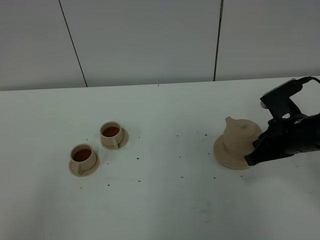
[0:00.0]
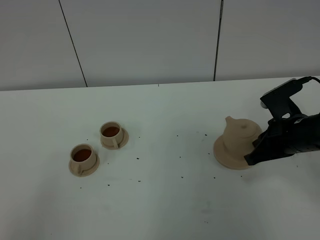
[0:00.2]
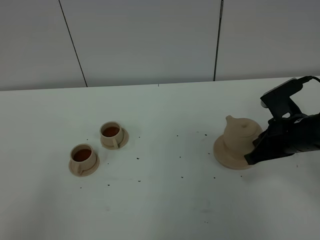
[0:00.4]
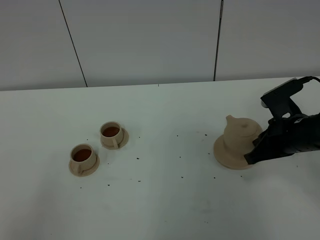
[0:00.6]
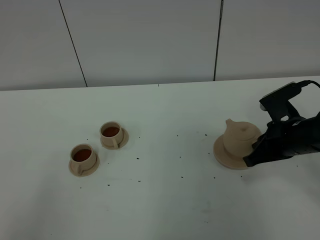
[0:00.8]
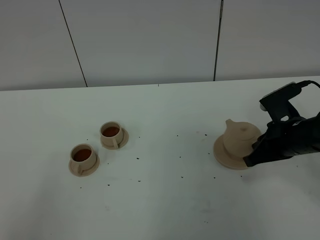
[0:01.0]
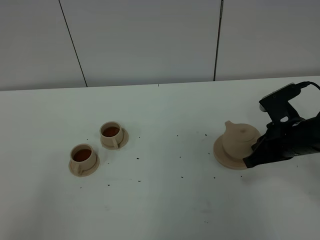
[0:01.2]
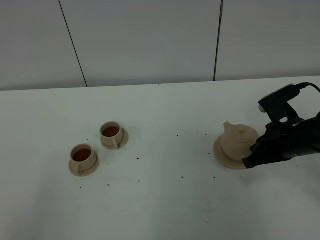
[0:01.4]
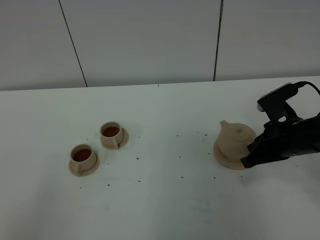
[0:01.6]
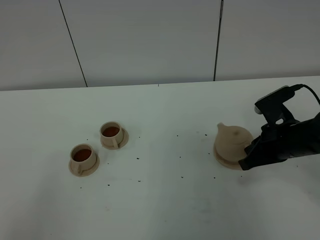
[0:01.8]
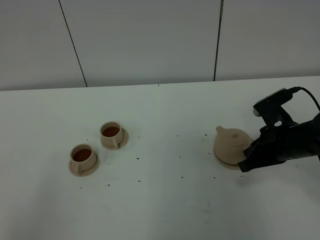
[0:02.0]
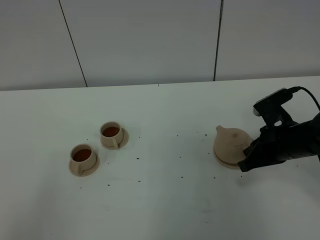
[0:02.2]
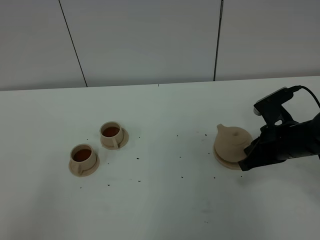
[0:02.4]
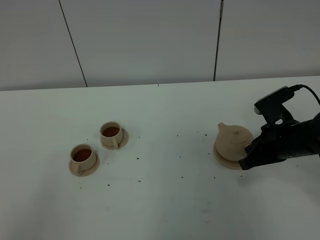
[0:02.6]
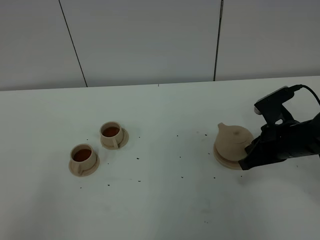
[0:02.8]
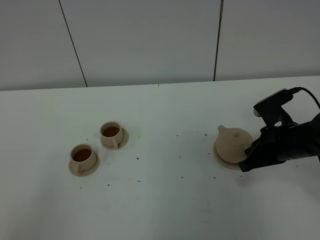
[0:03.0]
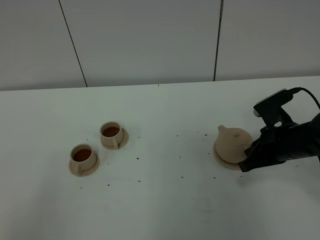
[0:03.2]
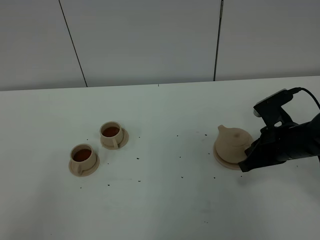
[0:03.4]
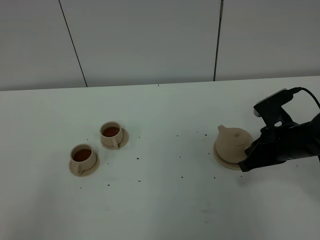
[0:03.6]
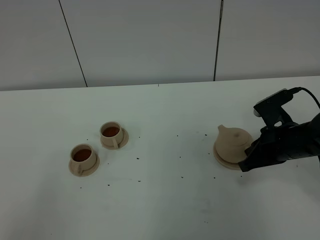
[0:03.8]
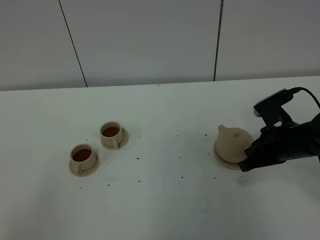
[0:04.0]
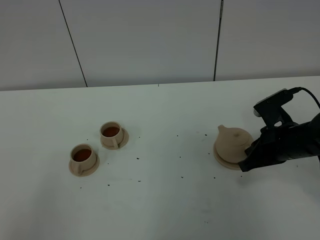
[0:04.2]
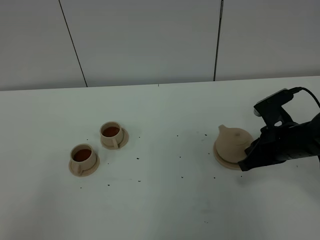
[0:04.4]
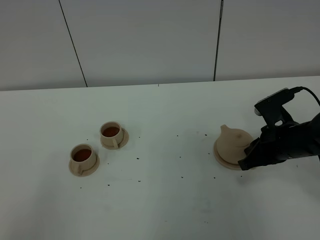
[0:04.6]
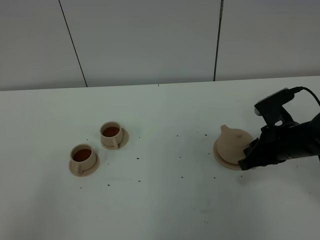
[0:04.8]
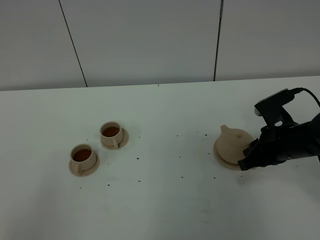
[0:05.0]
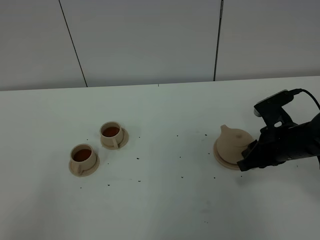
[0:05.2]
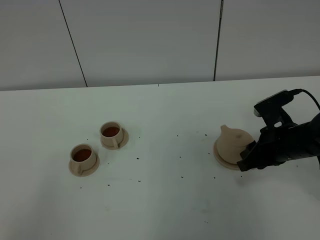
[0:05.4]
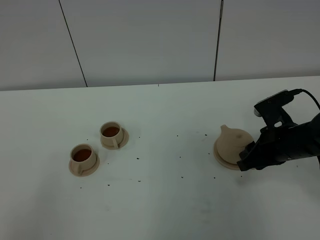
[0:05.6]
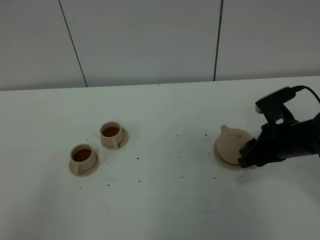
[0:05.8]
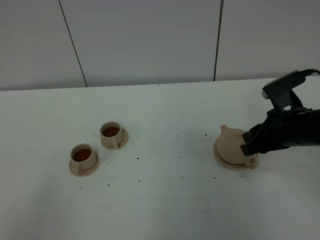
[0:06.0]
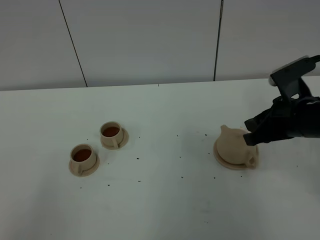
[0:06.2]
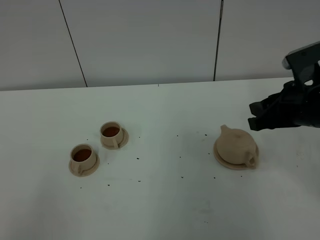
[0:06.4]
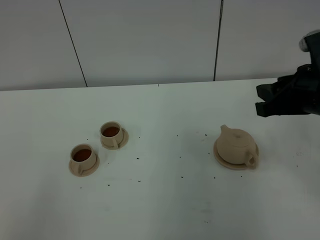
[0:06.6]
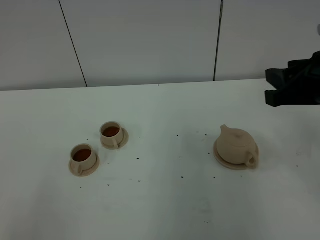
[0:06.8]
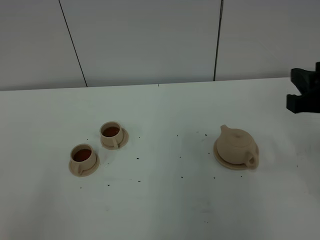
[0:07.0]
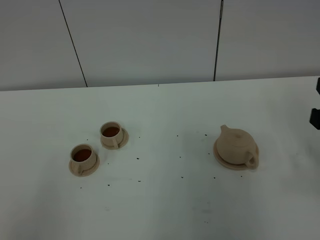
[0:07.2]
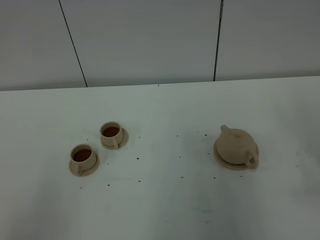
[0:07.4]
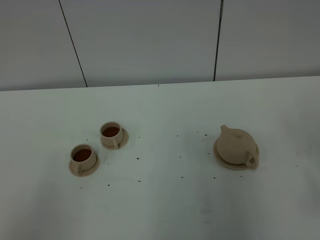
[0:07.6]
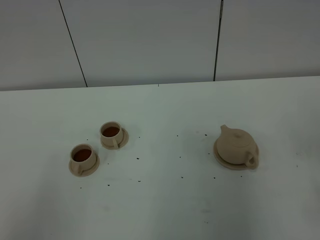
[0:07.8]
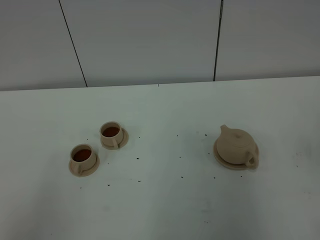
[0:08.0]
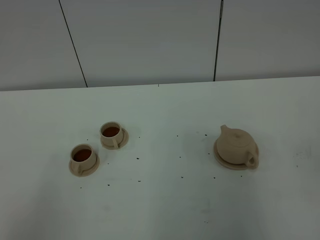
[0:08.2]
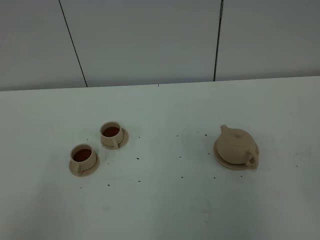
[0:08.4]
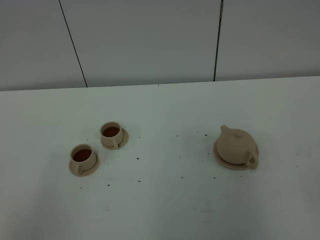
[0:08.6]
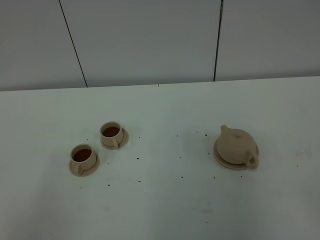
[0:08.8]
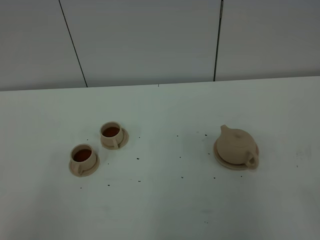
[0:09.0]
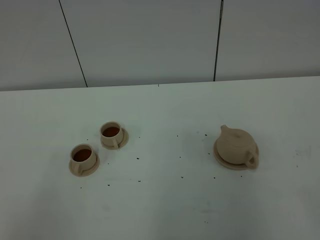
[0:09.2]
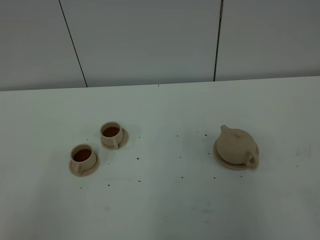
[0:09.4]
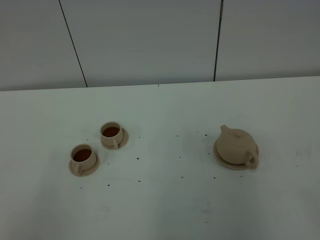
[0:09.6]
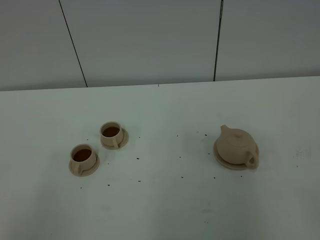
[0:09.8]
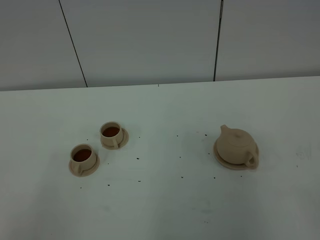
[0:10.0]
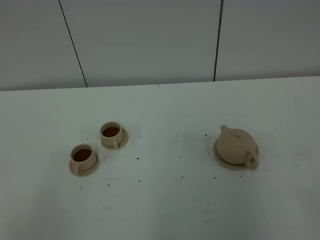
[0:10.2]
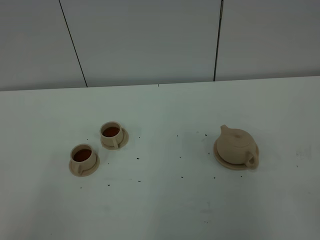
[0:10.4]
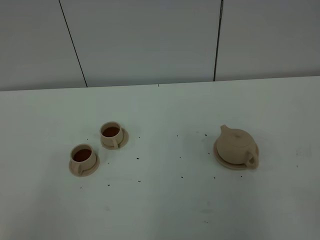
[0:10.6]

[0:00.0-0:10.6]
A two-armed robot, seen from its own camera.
Task of the whole recording: grasp the brown teapot and pour the tea into the two brown teacups one by one, put the brown teapot back in its original place.
0:00.0 to 0:01.6: Neither gripper changes place.
0:01.6 to 0:03.0: The grippers move only a little.
0:03.0 to 0:04.6: The two grippers keep their place.
0:04.6 to 0:06.0: The right gripper opens up.
0:06.0 to 0:07.6: The right gripper moves backward, upward and to the right, roughly 20 cm.

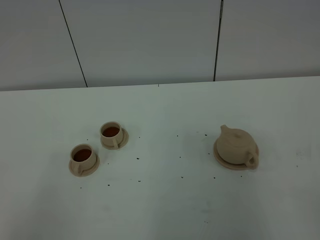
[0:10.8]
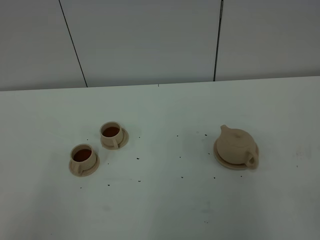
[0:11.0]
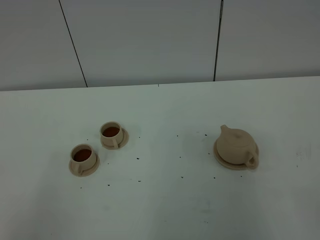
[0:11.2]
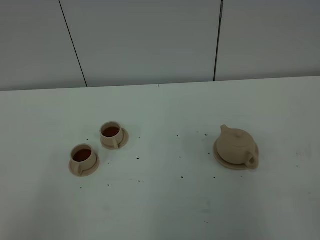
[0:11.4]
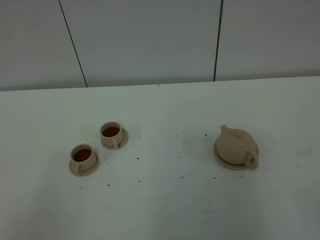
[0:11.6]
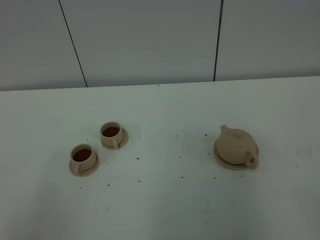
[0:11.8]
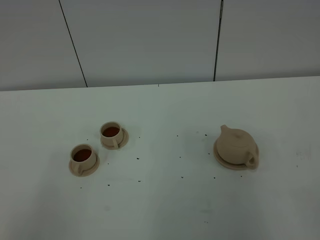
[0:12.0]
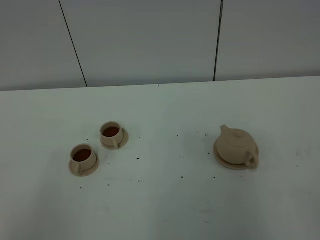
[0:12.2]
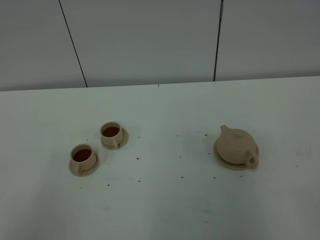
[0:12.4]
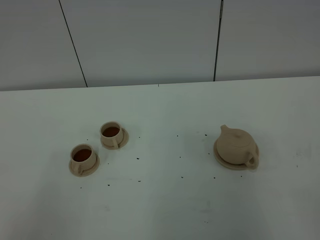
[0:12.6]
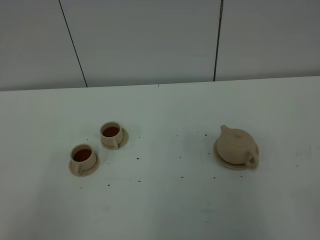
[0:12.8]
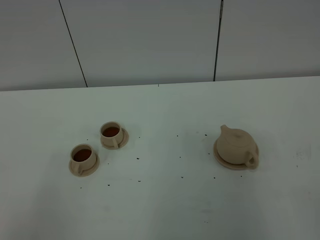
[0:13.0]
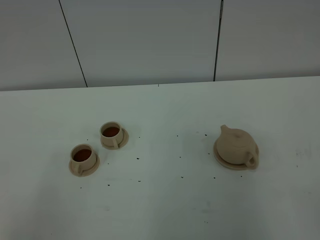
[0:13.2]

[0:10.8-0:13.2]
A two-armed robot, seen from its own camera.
Task of the whole recording: grasp the brown teapot and pour the tea into the two brown teacups one by one, put the brown teapot back in its original place.
0:10.8 to 0:13.2: Neither gripper changes place.

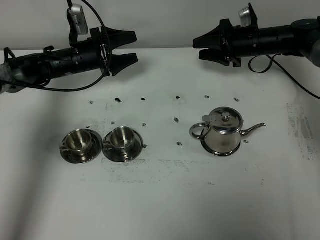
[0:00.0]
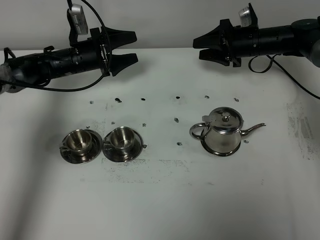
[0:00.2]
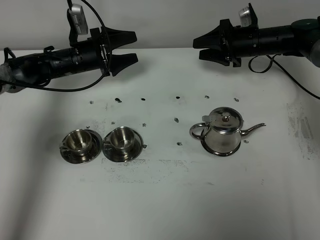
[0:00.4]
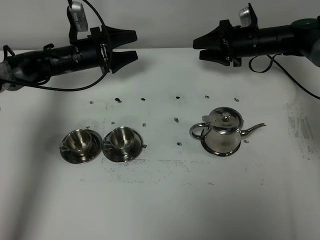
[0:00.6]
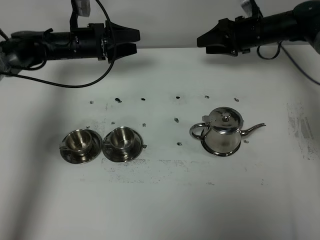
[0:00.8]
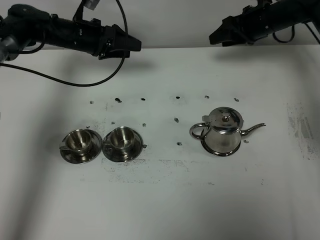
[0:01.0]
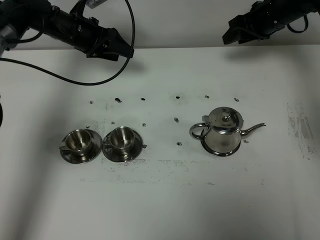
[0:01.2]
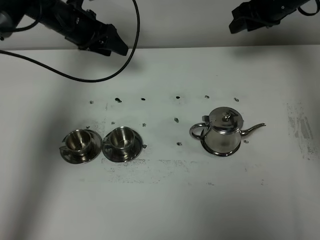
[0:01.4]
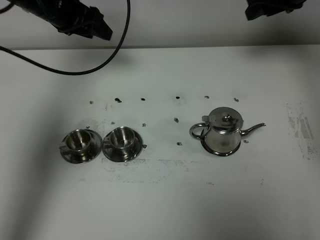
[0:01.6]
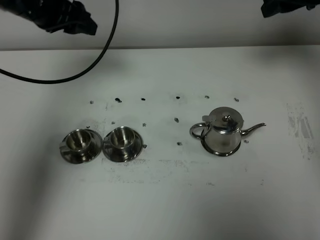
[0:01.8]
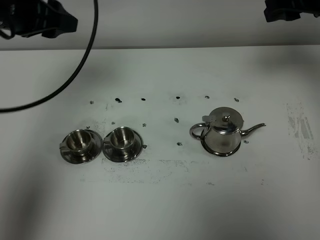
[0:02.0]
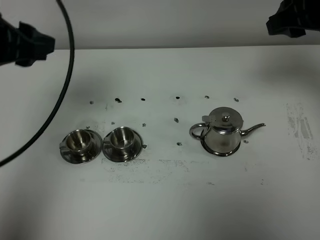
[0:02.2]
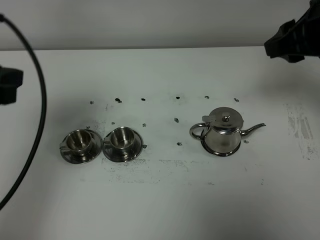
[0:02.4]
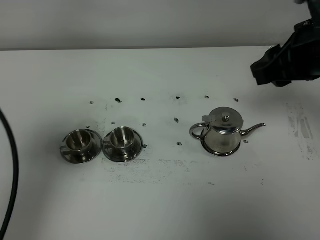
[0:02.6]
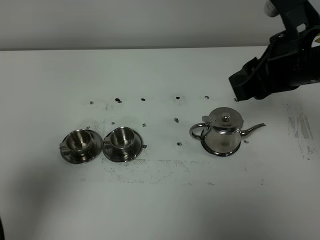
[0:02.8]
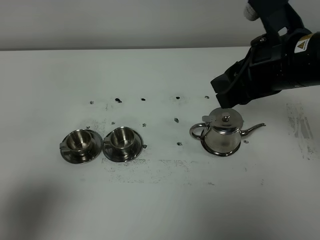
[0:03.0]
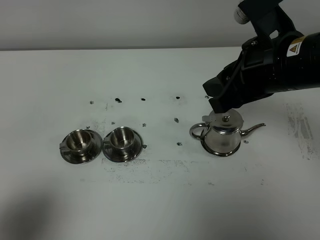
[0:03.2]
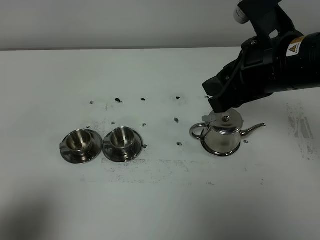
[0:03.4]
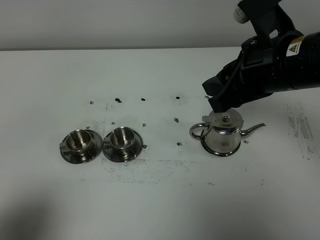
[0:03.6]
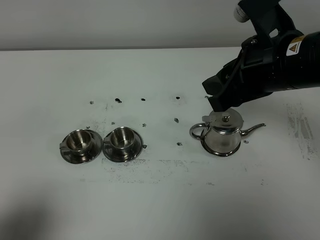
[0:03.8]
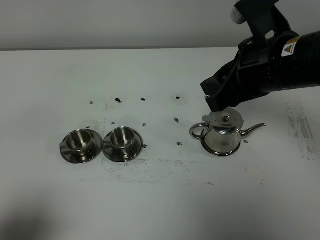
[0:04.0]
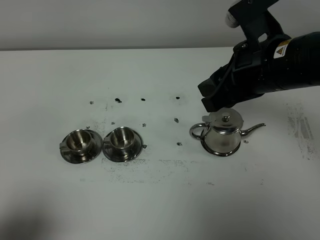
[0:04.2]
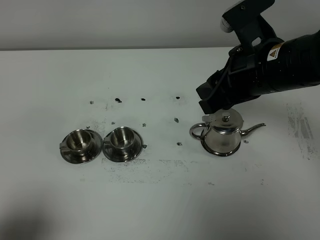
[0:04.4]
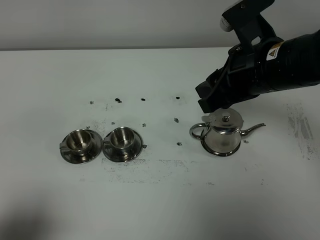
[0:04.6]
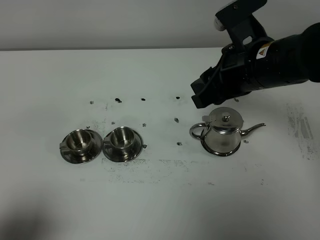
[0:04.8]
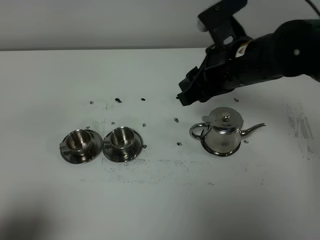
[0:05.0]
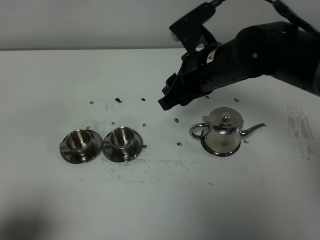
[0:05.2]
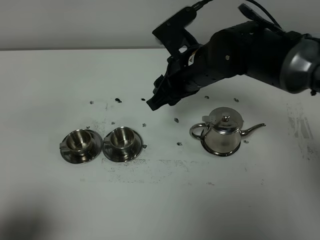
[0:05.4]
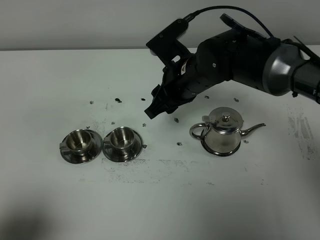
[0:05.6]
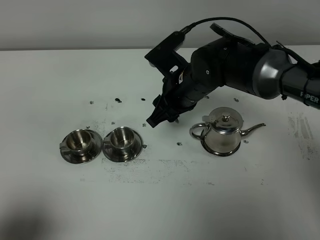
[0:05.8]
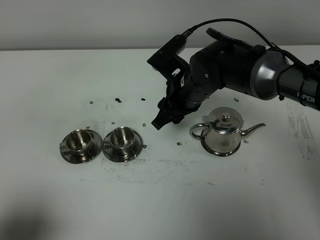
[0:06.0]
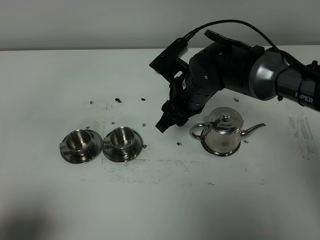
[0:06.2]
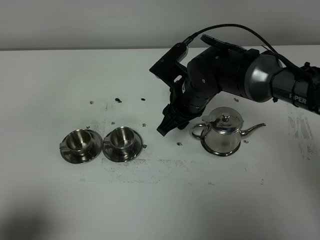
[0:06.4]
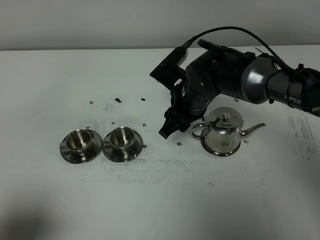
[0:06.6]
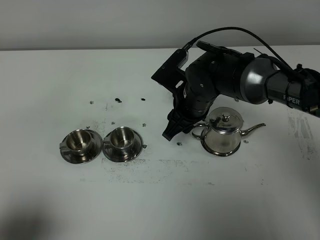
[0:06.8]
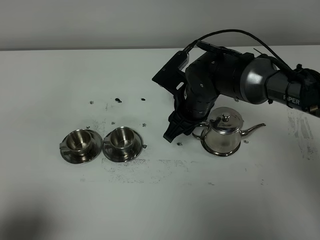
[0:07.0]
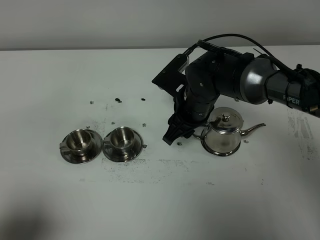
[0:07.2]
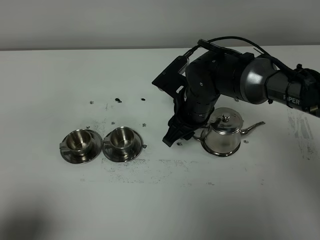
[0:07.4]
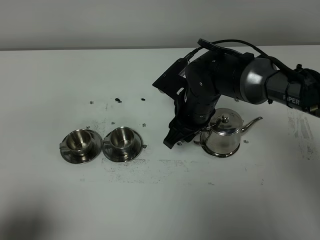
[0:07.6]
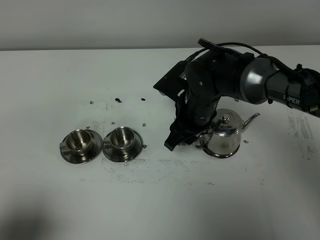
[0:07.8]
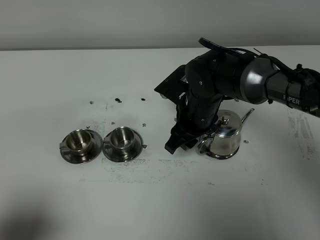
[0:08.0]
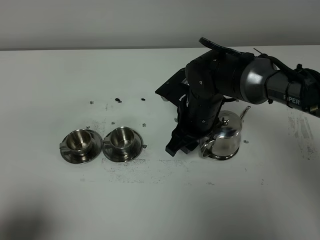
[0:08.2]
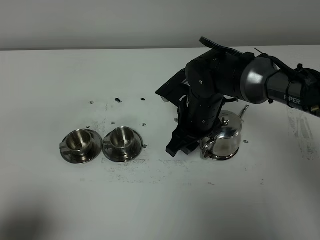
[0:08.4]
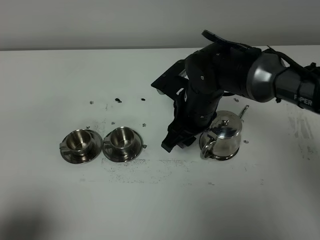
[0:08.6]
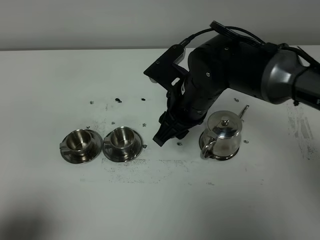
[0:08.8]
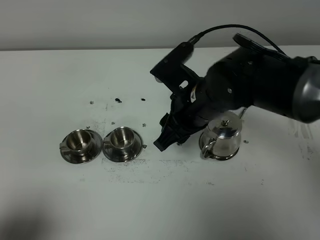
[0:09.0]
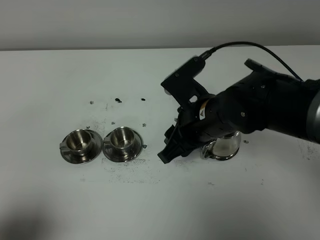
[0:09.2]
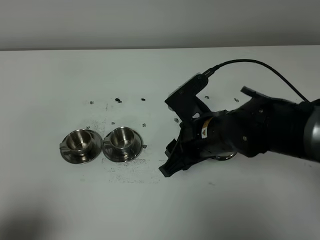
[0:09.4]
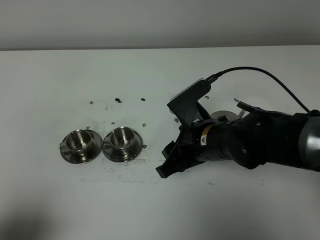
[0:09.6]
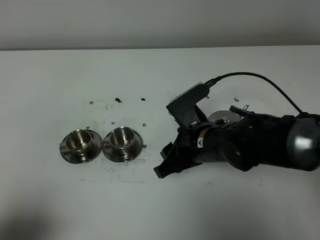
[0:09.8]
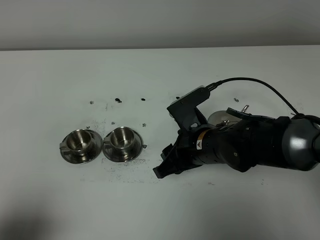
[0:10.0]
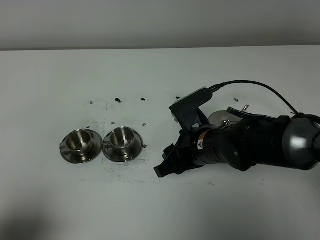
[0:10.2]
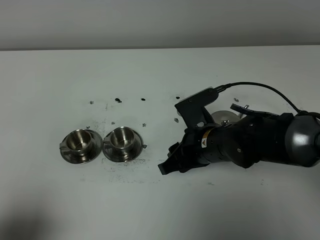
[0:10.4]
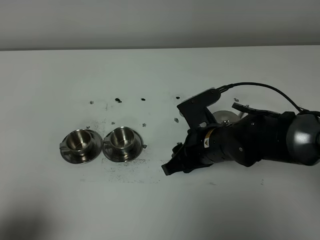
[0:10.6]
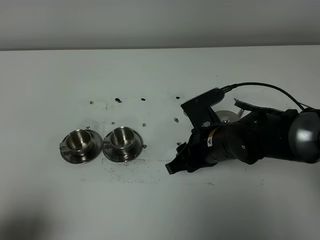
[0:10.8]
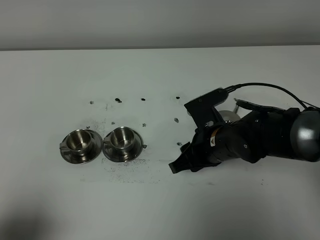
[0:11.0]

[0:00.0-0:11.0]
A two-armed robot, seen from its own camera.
Task of the whole recording: grasp the stainless steel teapot and pour the tea into the two stainless steel teacups one by one, put the stainless steel teapot back in its original place.
0:00.0 to 0:01.6: Both grippers travel together upward, roughly 20 cm. The left gripper closes up.
0:01.6 to 0:03.2: The right gripper moves backward and to the left, some 25 cm, while the left gripper goes approximately 40 cm backward.
0:03.2 to 0:04.8: The right gripper ends up some 5 cm from where it was.
0:04.8 to 0:06.2: The right gripper travels downward, to the left and forward by roughly 15 cm.
0:06.2 to 0:07.8: There are only small adjustments of the grippers.
0:07.8 to 0:09.4: The right gripper is displaced backward by some 10 cm.
0:09.4 to 0:11.0: There are only small adjustments of the grippers.
